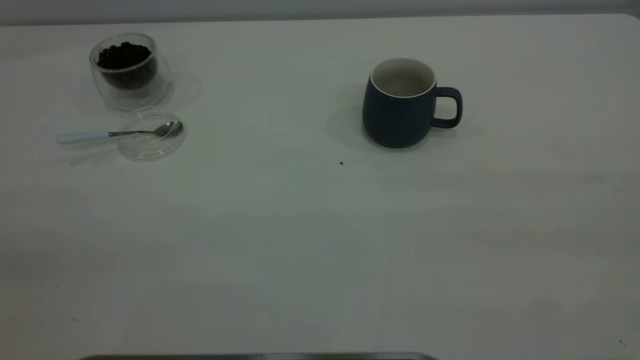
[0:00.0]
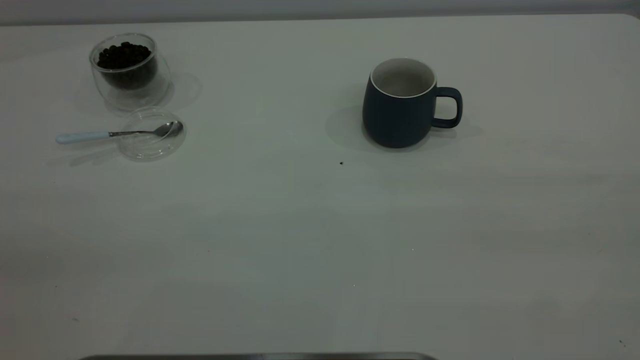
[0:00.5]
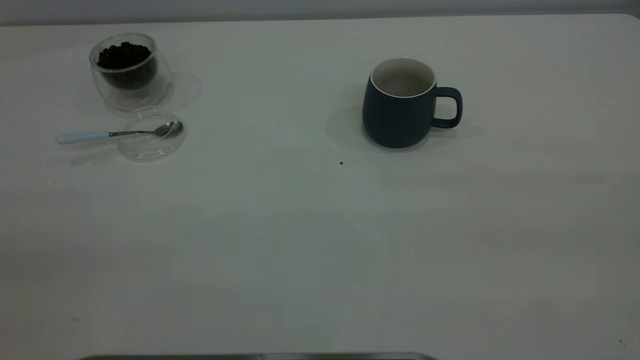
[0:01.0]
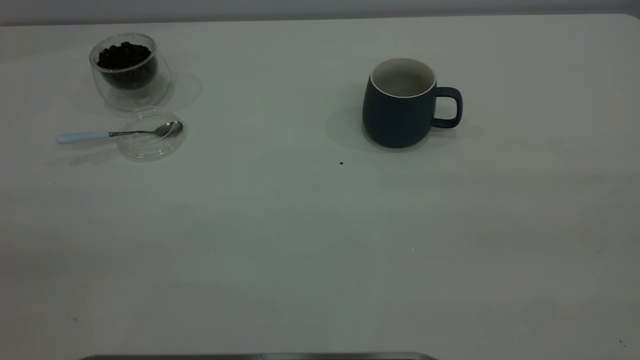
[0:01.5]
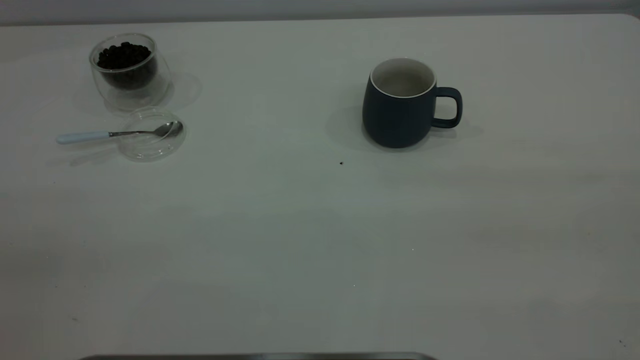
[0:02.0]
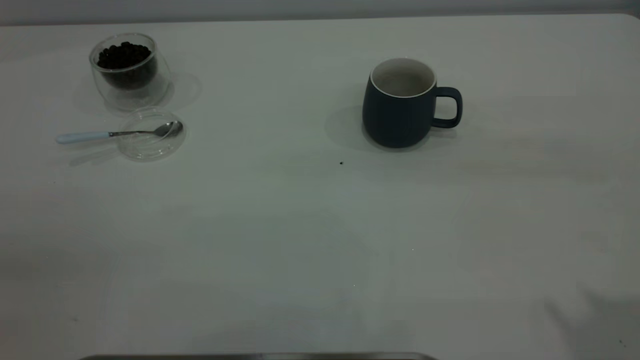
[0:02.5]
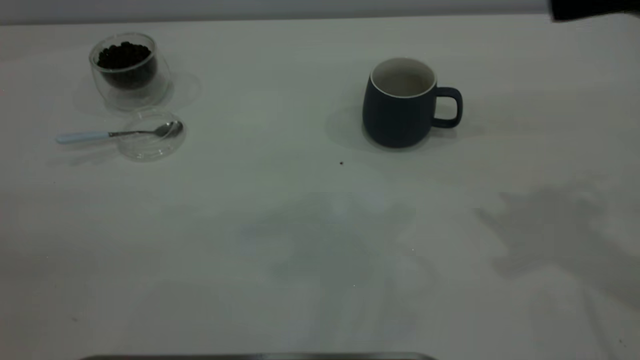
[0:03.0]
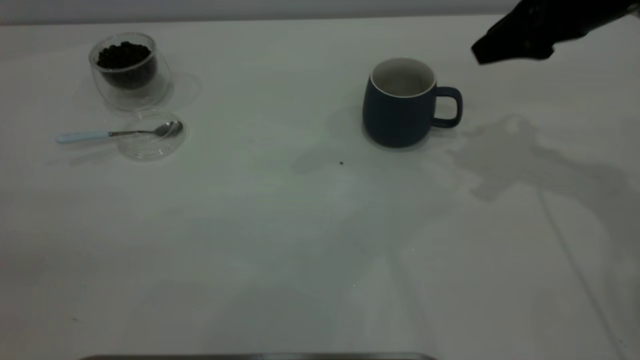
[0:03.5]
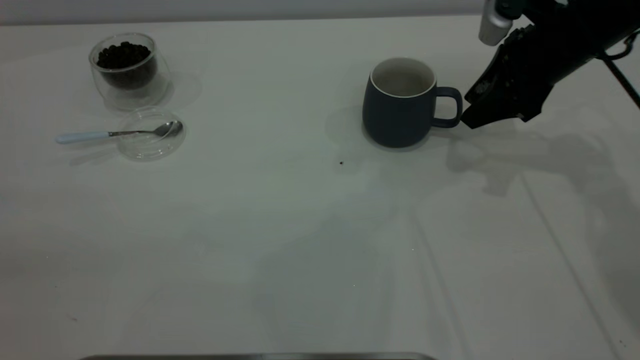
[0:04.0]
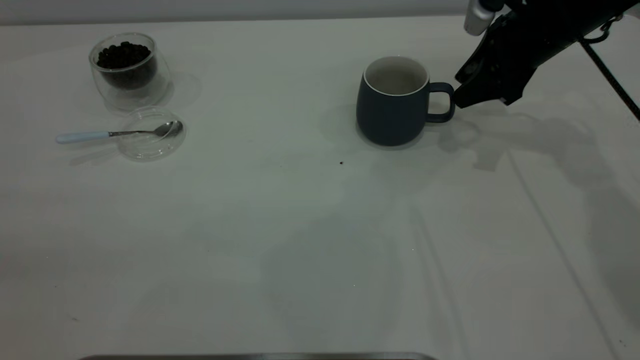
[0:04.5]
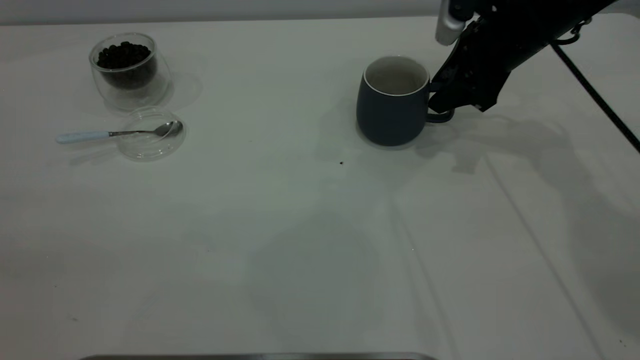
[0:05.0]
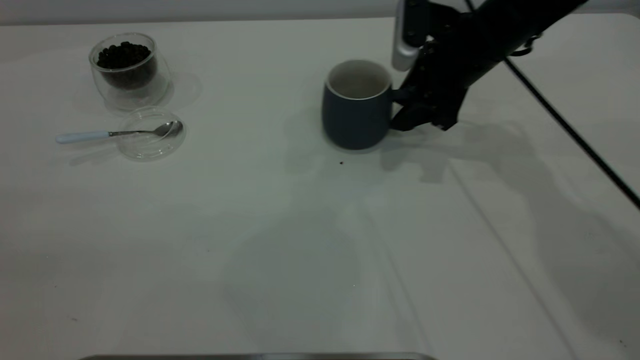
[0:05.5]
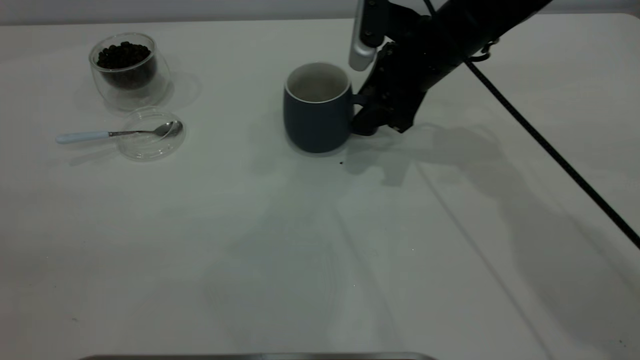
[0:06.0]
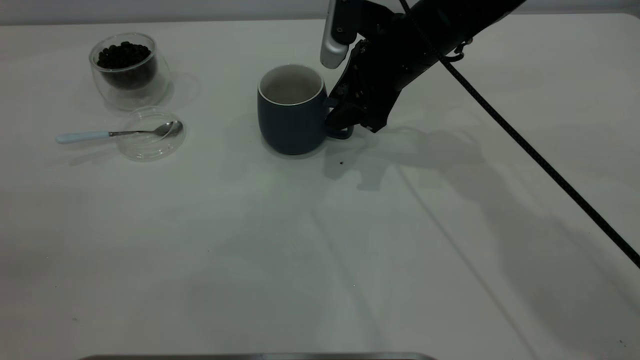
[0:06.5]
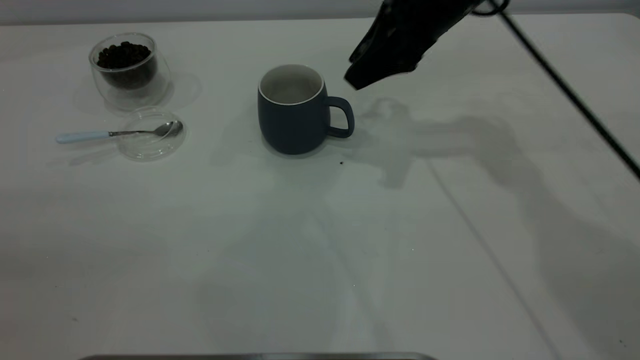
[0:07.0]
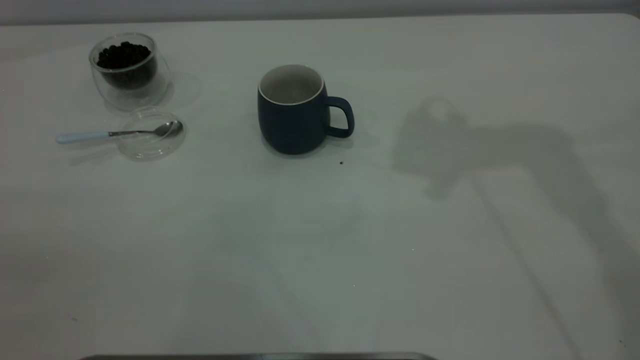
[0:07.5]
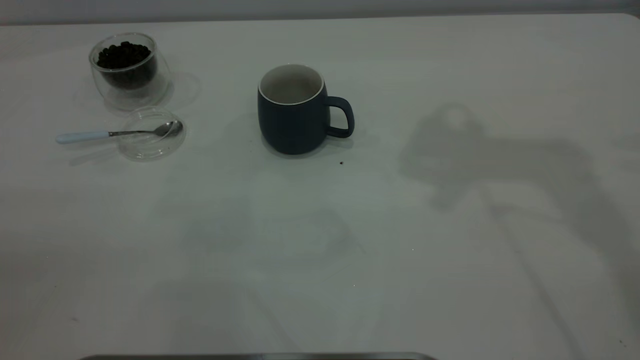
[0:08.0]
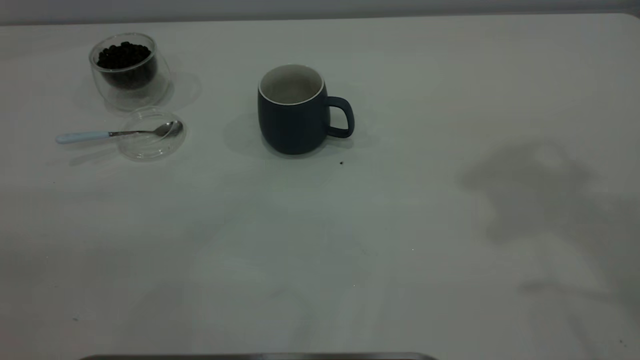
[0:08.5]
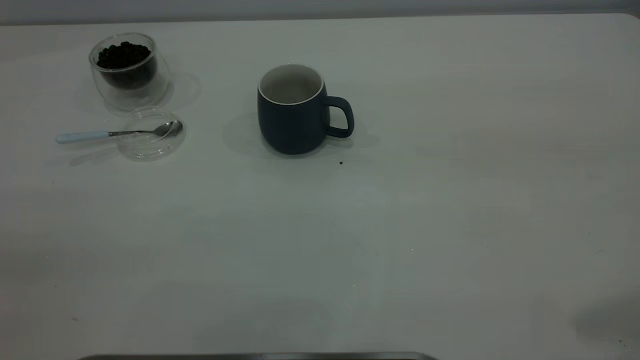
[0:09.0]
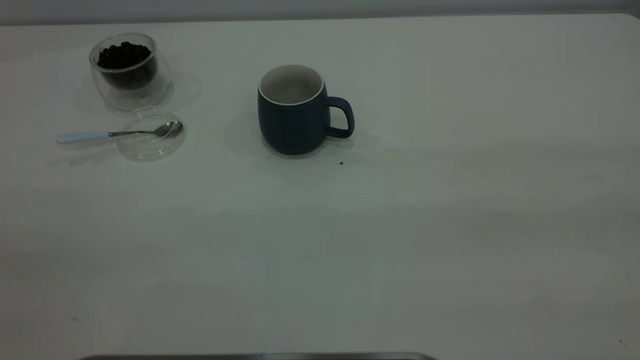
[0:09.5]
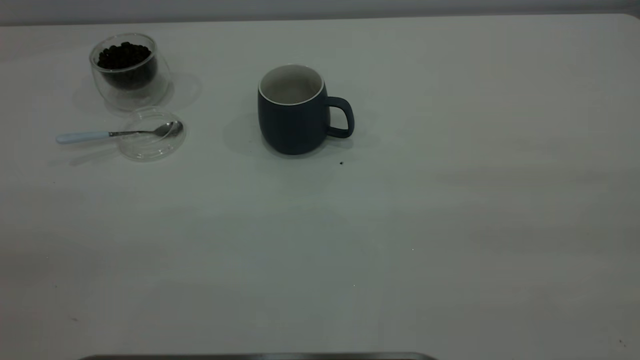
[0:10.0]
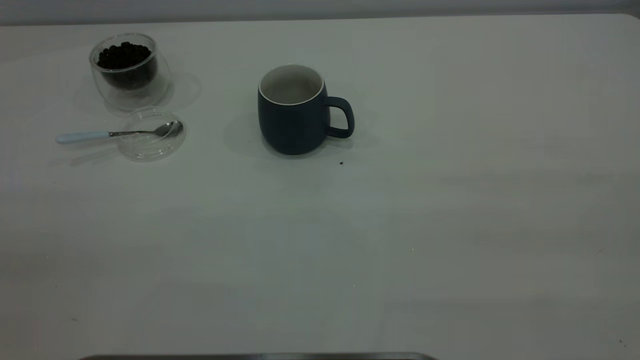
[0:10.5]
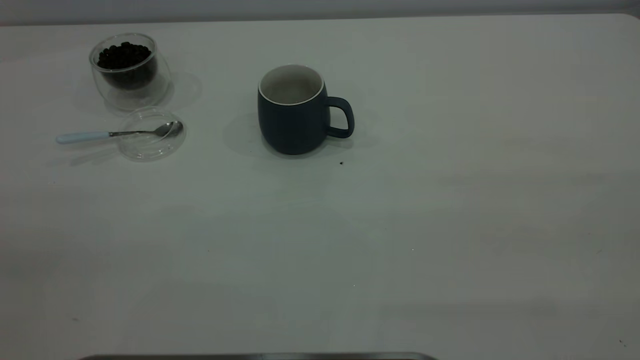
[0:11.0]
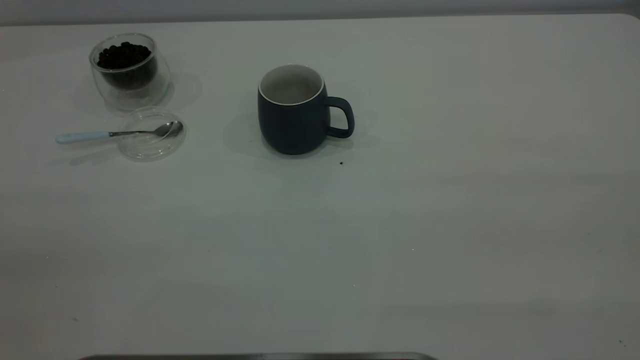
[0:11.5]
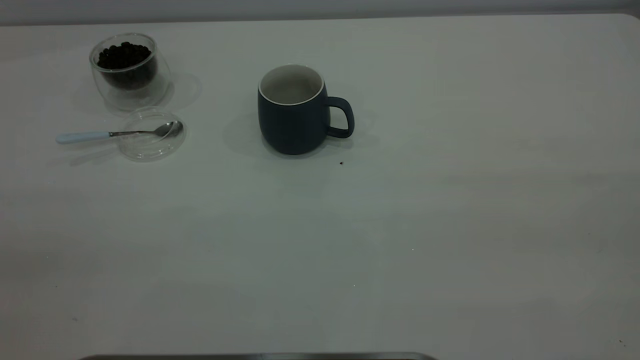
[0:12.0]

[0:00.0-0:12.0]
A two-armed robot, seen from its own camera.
Task of the whole recording: the right gripper place the grey cup in the center of the table, the left gripper take the blue spoon from the cup lid and scoop out the coffee beans from the coffee cup and put them into the grey cup, the left gripper put the spoon back into the cup lid.
Step, 0:00.0 to 0:07.0: Move the cup to the center of view.
0:02.0 to 0:04.0: The right gripper travels forward and downward by approximately 50 cm.
0:04.0 to 0:06.0: The right gripper goes some 15 cm to the left.
0:06.0 to 0:08.0: The right gripper shifts roughly 30 cm upward.

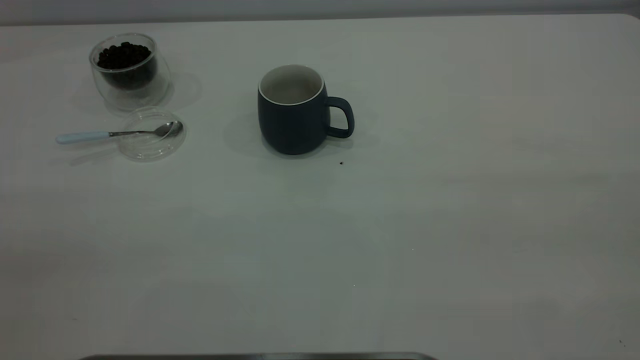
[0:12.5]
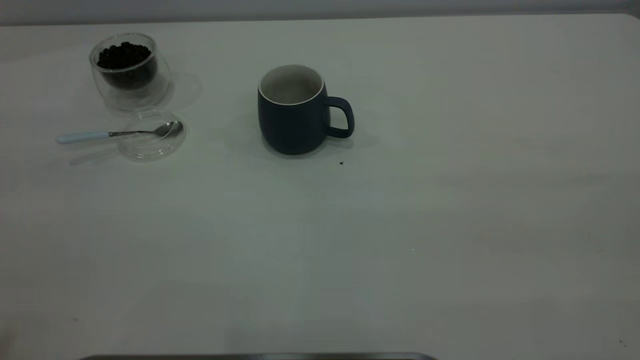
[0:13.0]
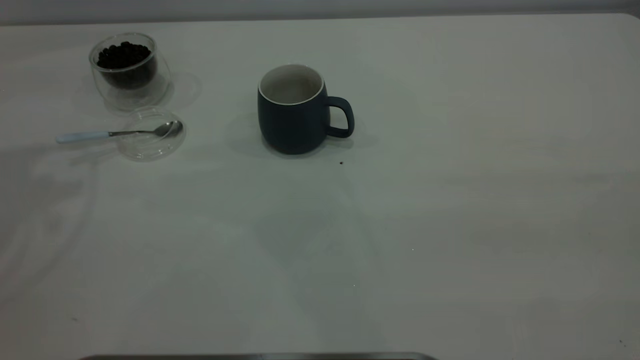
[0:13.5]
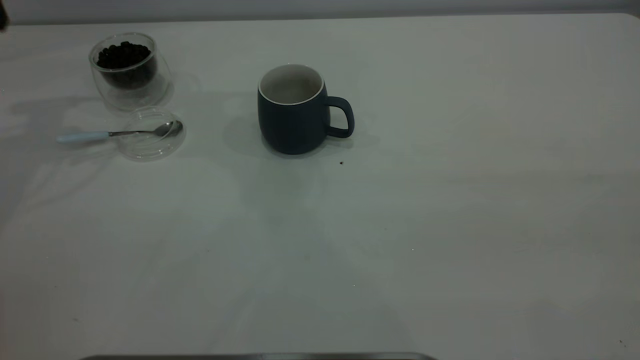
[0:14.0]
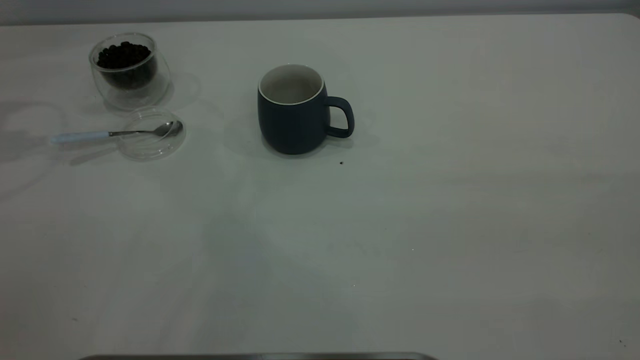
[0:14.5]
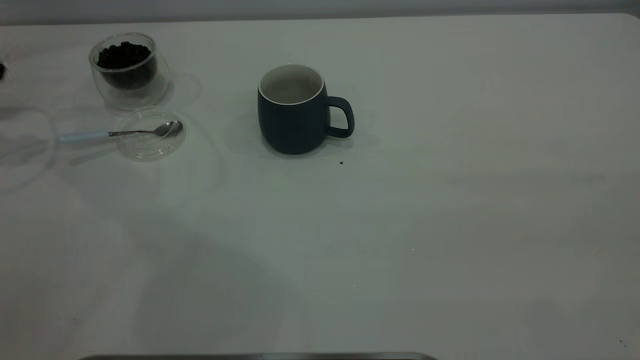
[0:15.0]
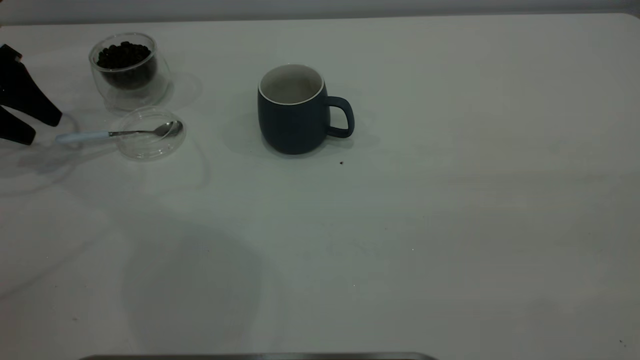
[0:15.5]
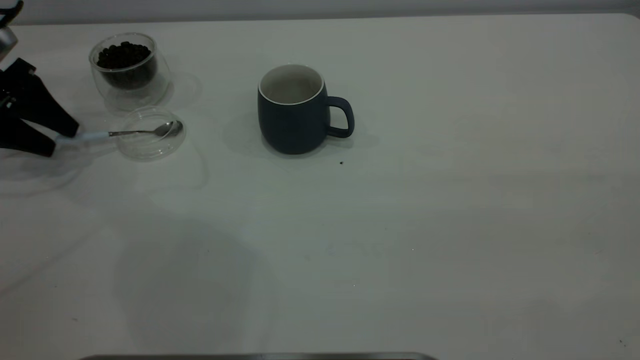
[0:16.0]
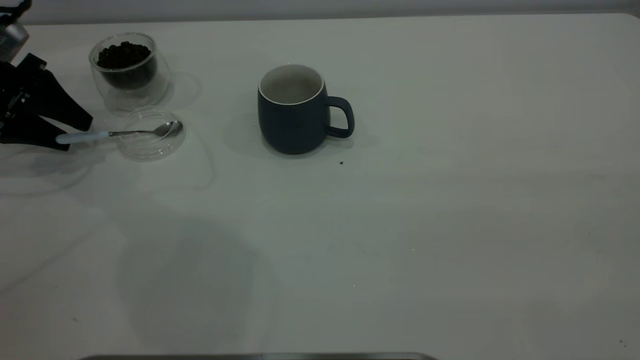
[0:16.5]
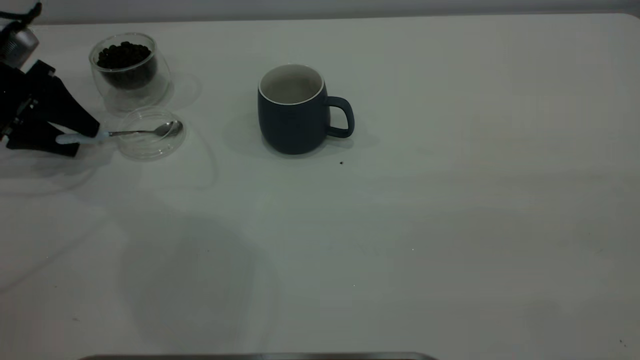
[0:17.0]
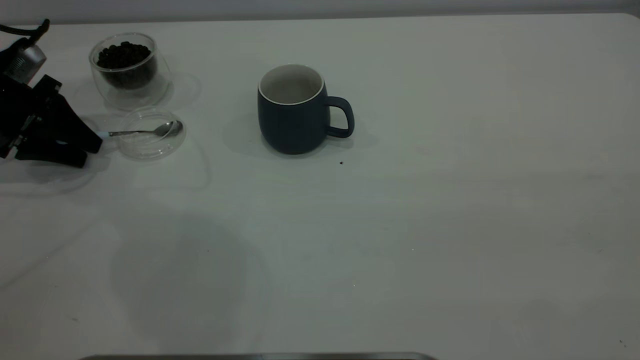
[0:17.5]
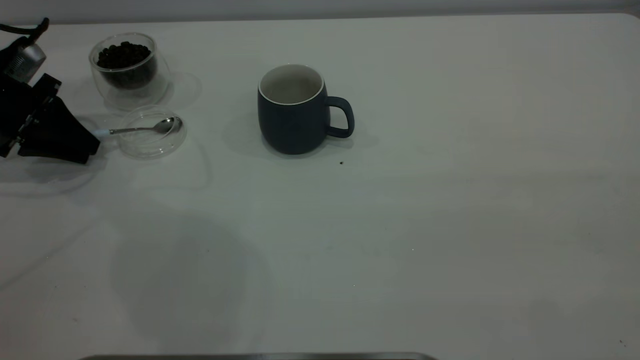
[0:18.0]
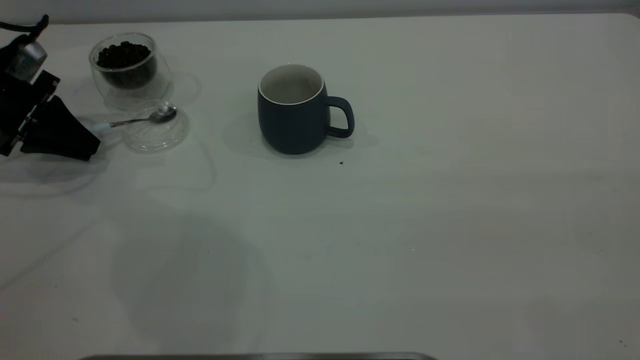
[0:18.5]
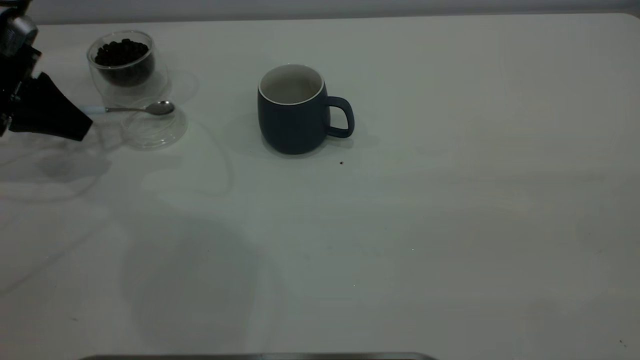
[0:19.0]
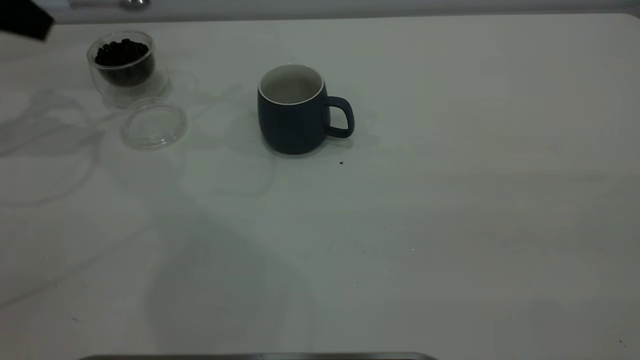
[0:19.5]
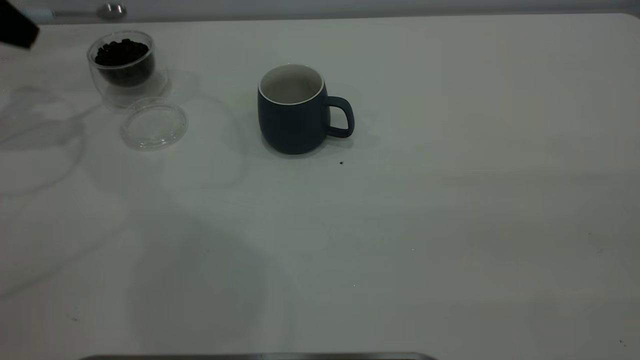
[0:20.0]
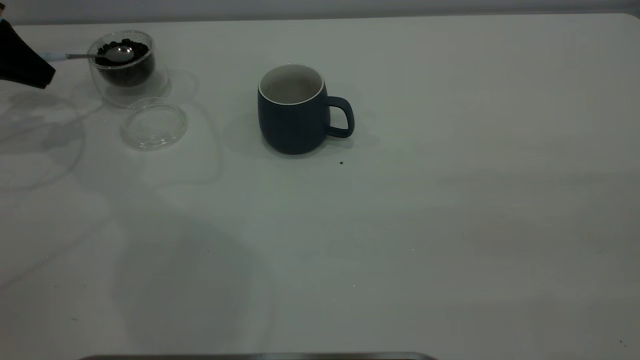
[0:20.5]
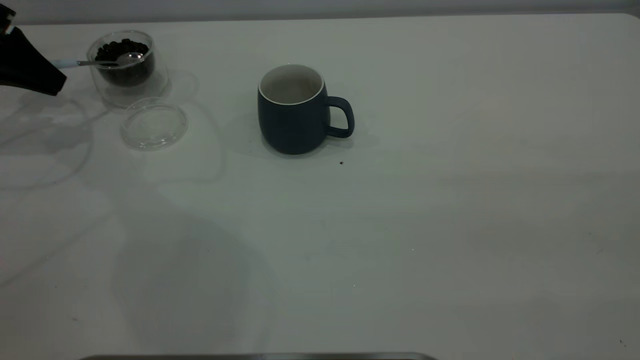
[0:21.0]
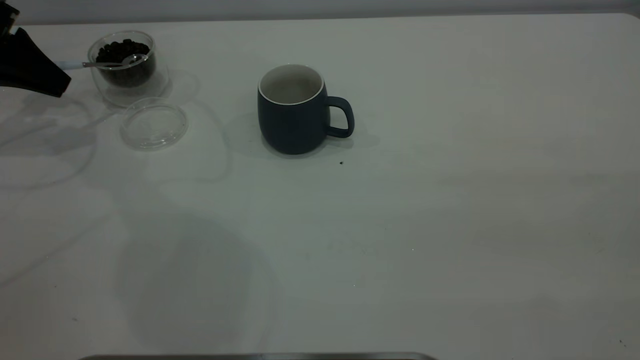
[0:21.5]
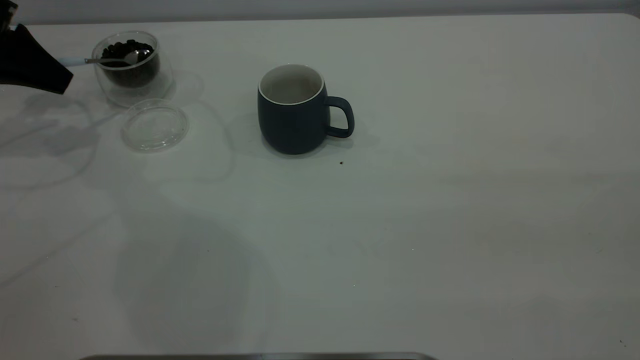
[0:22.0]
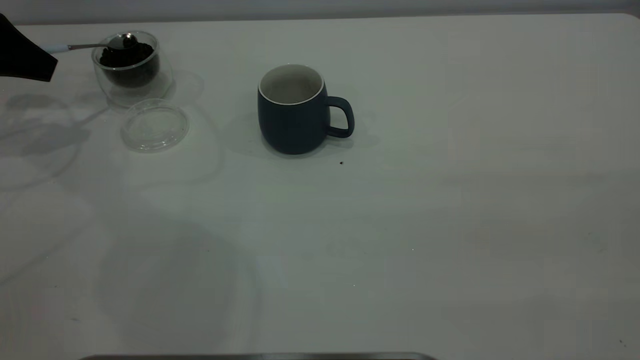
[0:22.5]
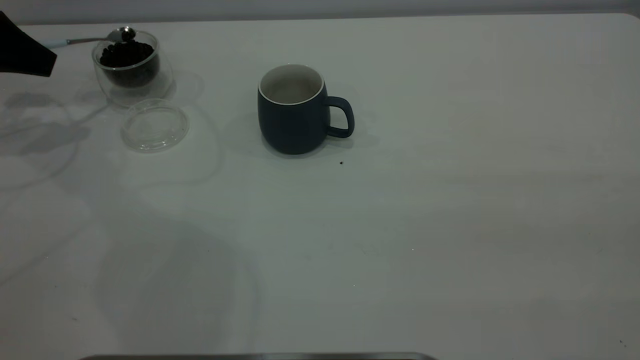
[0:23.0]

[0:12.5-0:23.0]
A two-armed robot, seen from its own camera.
Task of the whole recording: the right gripper place the grey cup in the center of the table, the left gripper take the blue spoon from the cup lid and scoop out the coffee beans from the coffee cup and put them into the grey cup, the left gripper put the spoon back into the cup lid.
Step, 0:12.5 to 0:19.0: Pick up the spoon.
0:14.5 to 0:16.5: The left gripper shifts roughly 15 cm downward.
0:16.5 to 0:19.0: The left gripper closes up.
0:19.0 to 0:21.0: The left gripper goes upward and returns, some 10 cm each way.
0:21.0 to 0:23.0: The grippers make only small movements.
